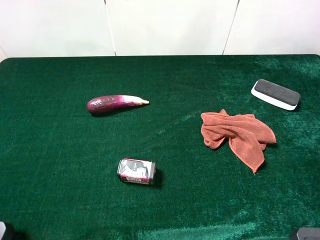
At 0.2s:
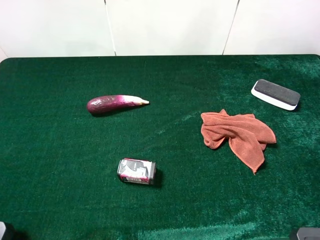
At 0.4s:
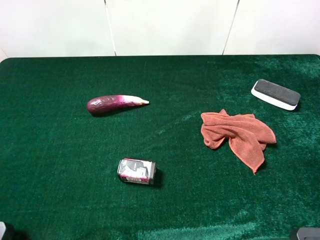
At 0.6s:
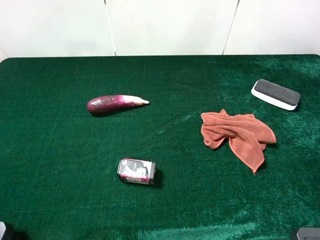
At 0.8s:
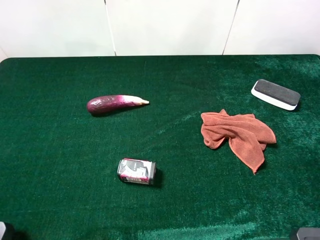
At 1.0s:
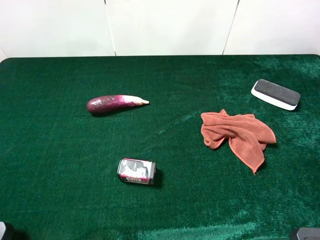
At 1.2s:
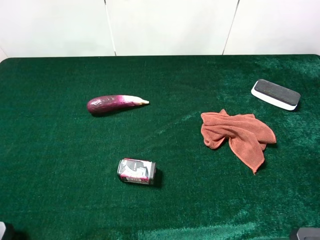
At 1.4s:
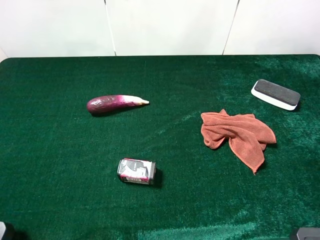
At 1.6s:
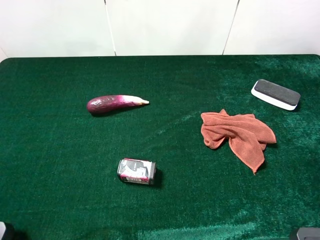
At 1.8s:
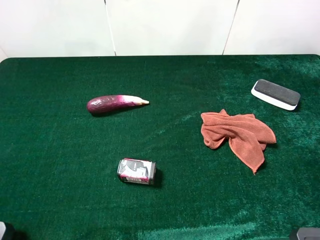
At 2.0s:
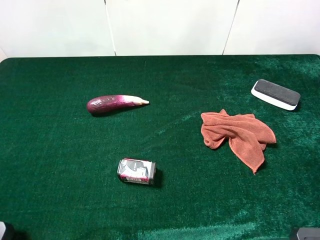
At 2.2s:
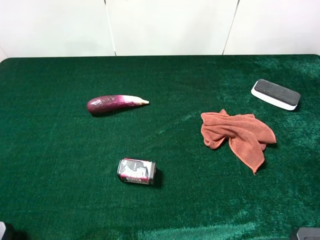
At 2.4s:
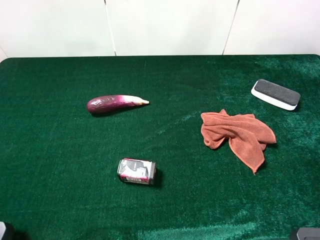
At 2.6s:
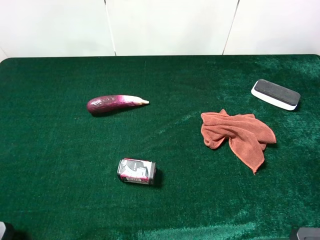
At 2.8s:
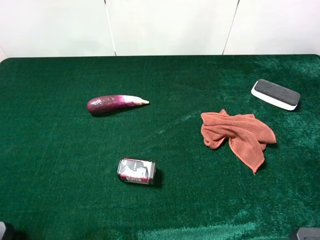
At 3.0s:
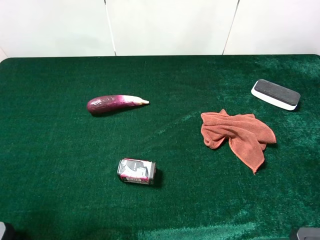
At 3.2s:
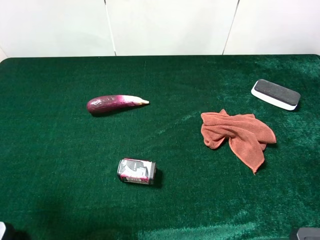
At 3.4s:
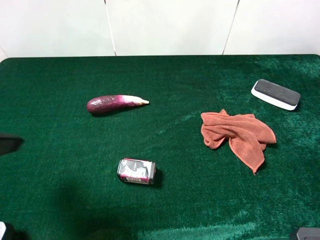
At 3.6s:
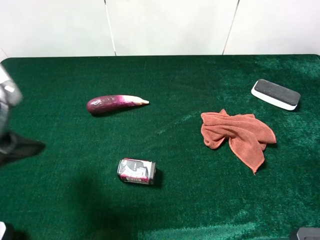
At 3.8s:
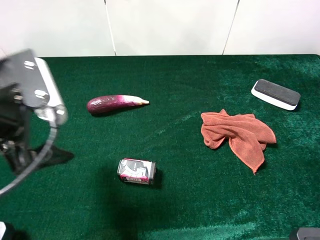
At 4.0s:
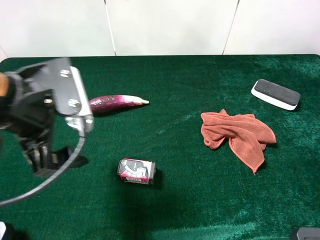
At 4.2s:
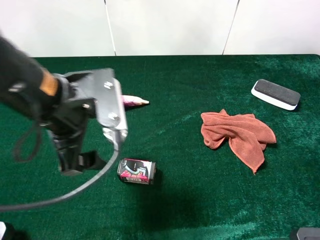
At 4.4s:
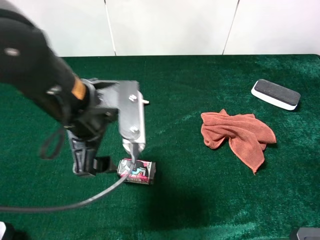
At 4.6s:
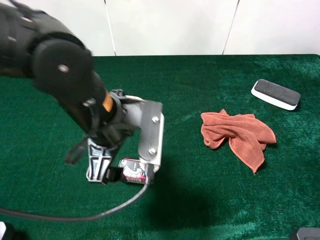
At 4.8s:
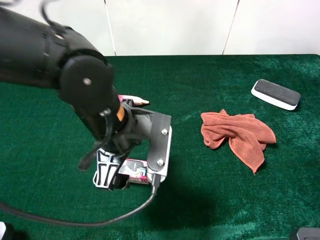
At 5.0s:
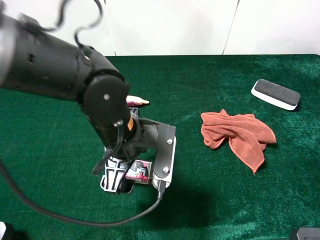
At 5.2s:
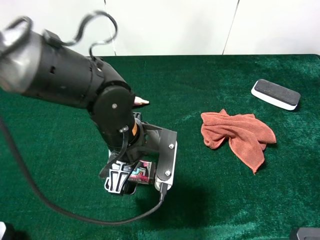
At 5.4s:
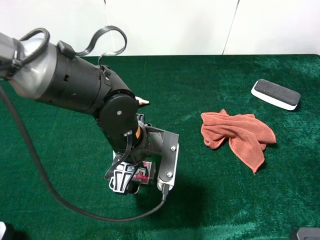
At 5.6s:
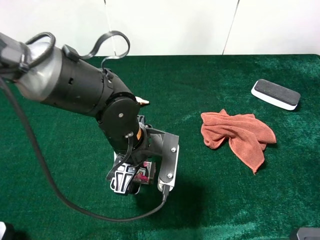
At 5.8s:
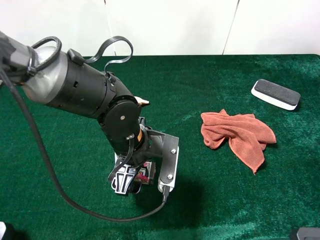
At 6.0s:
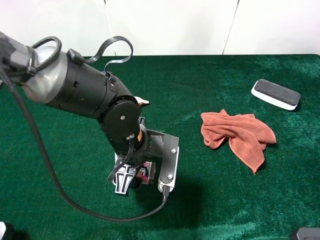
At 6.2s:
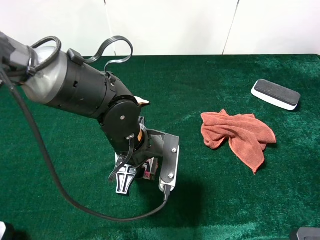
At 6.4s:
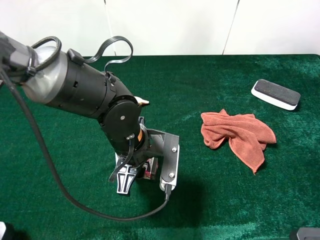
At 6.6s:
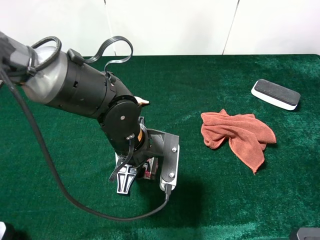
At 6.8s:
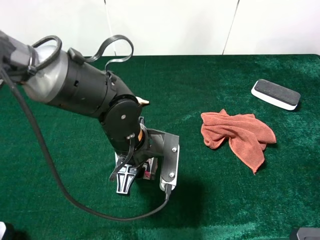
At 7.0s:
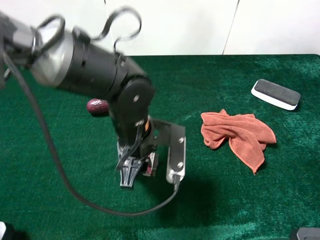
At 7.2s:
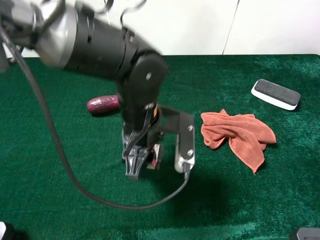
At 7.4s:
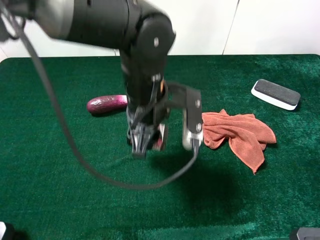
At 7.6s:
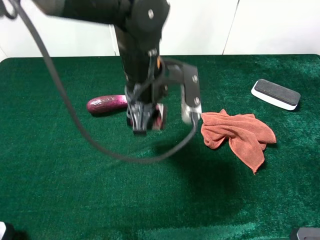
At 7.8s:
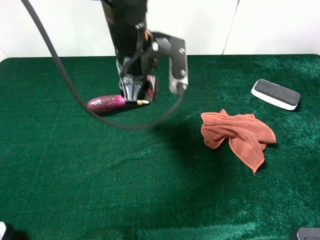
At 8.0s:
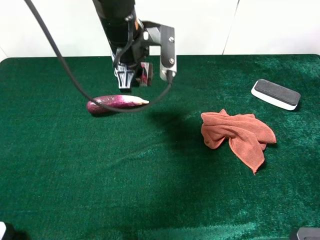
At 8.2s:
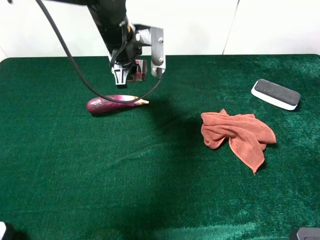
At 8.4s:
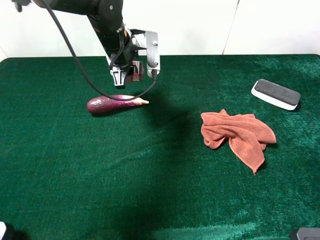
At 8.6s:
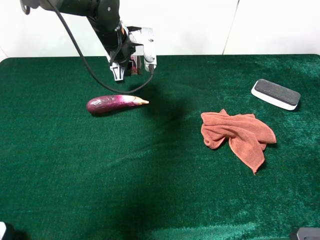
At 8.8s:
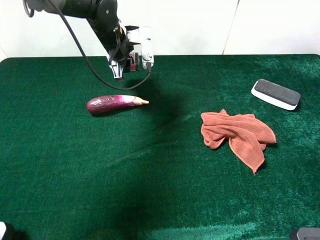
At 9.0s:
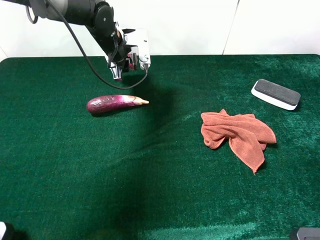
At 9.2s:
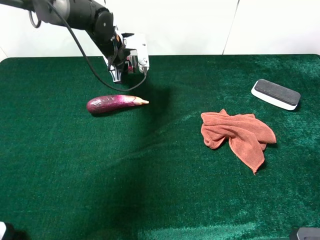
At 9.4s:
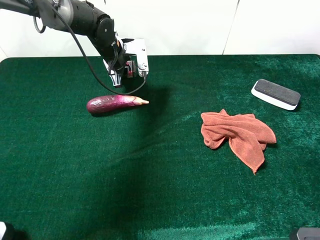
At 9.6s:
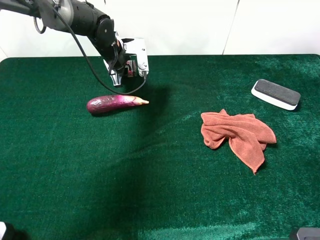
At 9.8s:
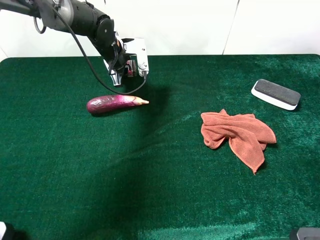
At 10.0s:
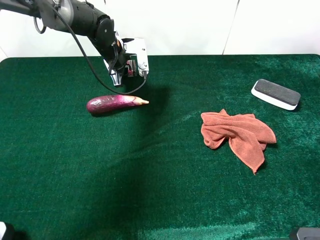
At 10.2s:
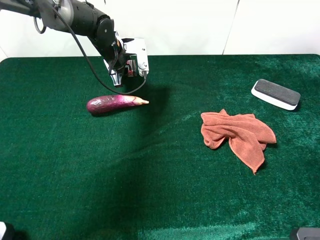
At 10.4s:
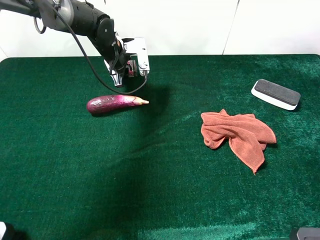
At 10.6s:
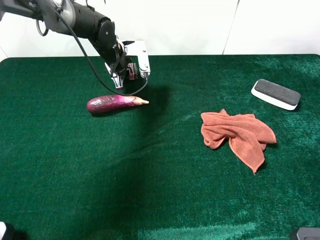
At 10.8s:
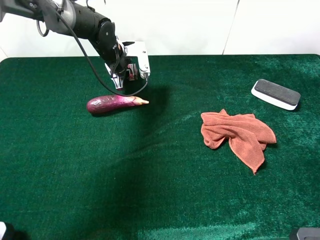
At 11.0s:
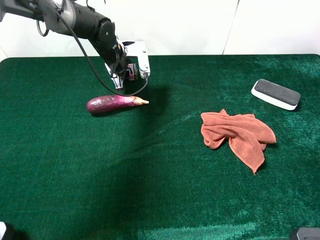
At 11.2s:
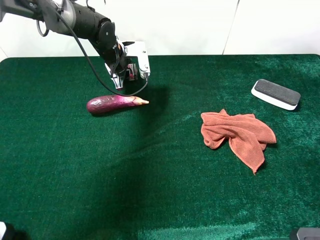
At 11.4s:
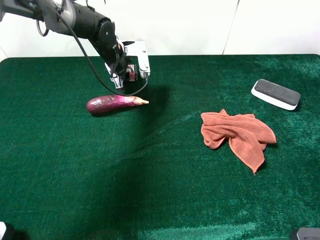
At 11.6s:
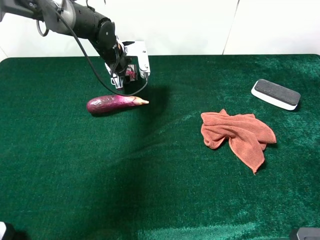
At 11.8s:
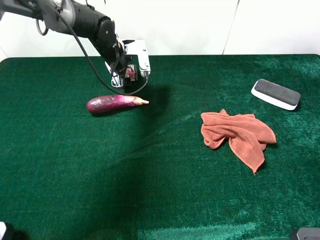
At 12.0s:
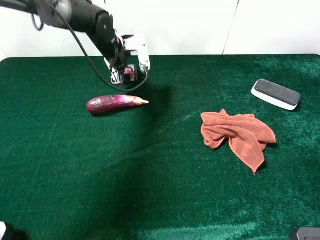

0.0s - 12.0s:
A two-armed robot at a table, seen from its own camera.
Task of the whole recording: the gripper move the object.
Step, 0.0s - 6.0s: Grasp the square chewing gum with the left gripper.
Step, 6.2s - 11.6s: Place the square chewing gum on the table with the left gripper.
3.0s - 4.4s: The left gripper heads to the right and forward, covering about 20 cm.
4.4s - 6.0s: The left gripper heads downward and to the right, covering approximately 15 cm.
6.0s - 7.6s: The left gripper moves upward and forward, some 10 cm, and closes up.
7.6s - 9.0s: The left gripper goes some 20 cm forward and to the left.
9.0s - 10.4s: The grippers make only small movements.
10.4s - 12.0s: The left gripper opens.

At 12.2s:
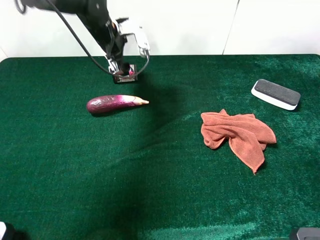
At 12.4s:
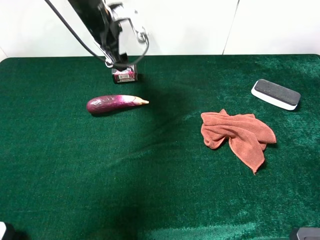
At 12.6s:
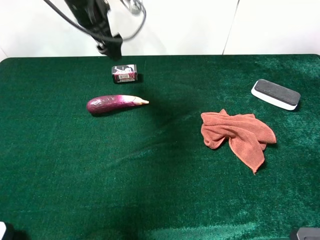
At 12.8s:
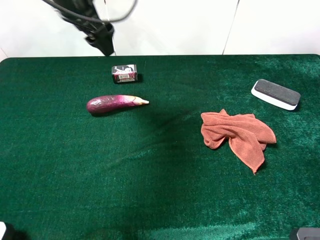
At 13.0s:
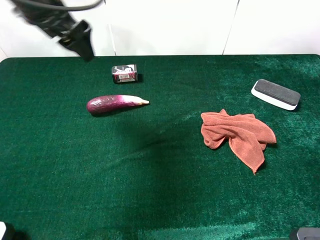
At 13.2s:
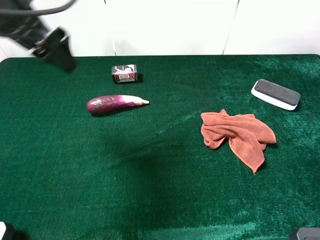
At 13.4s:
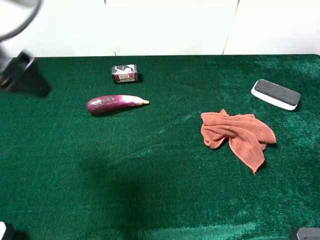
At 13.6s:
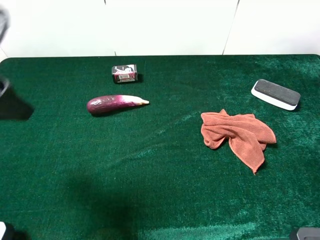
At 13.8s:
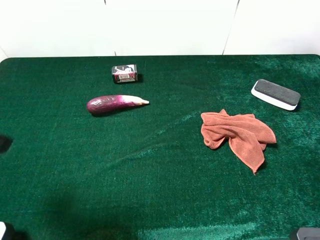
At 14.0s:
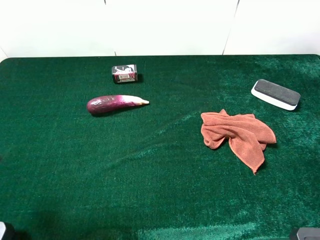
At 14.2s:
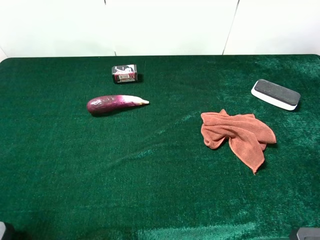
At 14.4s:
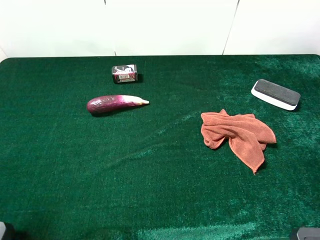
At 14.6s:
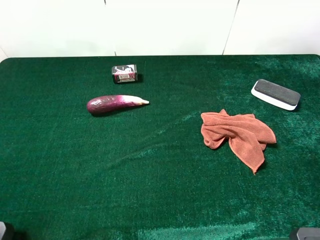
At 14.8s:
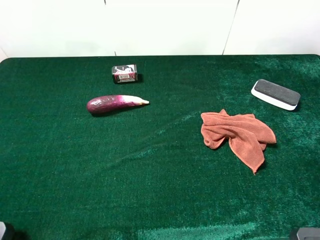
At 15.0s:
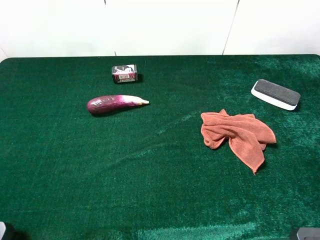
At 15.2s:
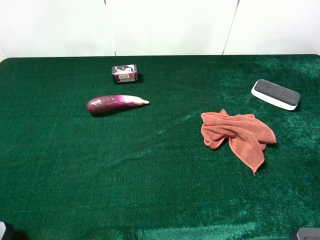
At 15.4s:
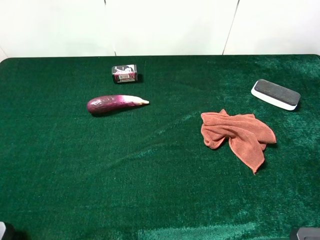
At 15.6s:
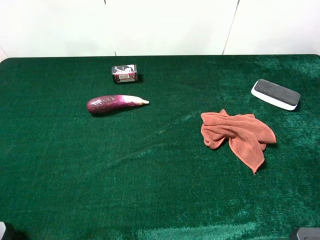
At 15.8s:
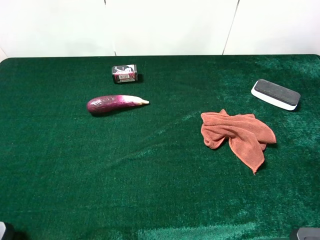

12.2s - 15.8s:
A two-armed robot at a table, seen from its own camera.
Task of the whole recording: the gripper move the object.
12.2s - 14.0s: The left gripper moves backward and to the left, approximately 40 cm.

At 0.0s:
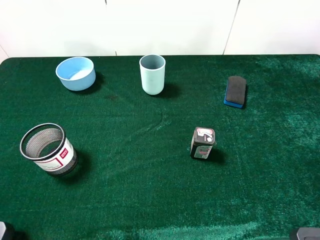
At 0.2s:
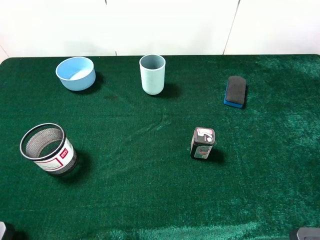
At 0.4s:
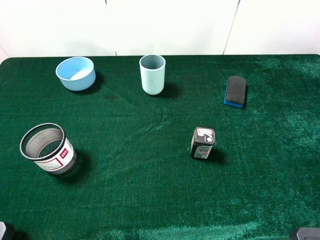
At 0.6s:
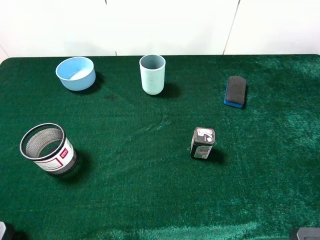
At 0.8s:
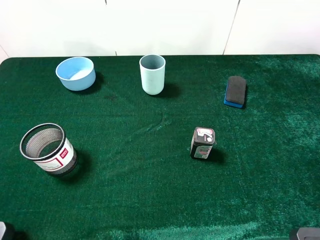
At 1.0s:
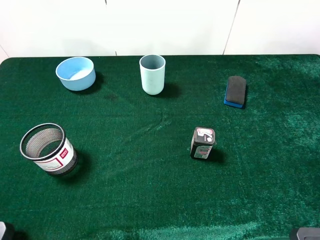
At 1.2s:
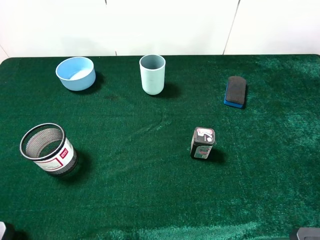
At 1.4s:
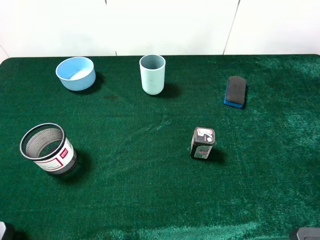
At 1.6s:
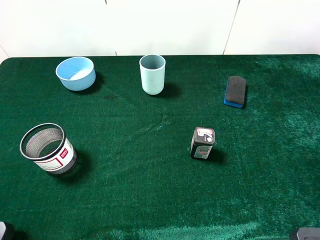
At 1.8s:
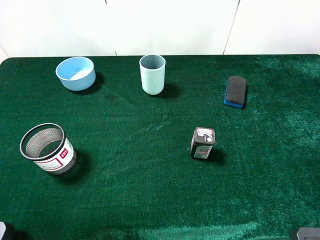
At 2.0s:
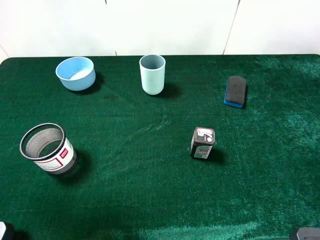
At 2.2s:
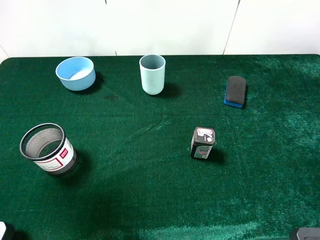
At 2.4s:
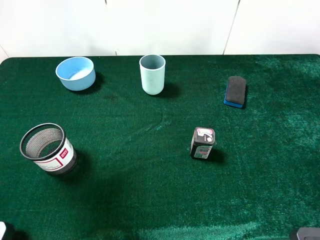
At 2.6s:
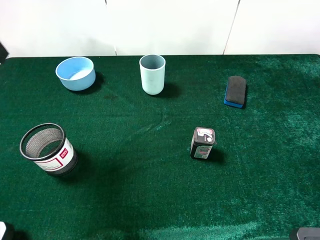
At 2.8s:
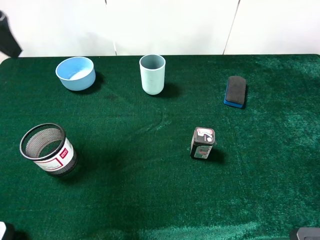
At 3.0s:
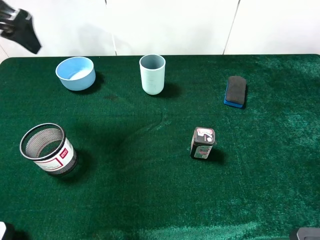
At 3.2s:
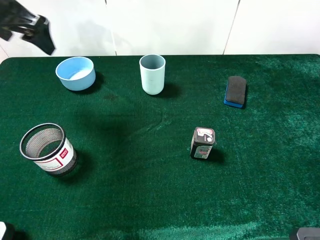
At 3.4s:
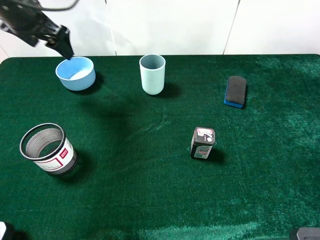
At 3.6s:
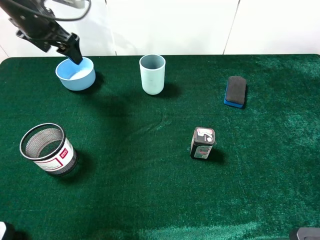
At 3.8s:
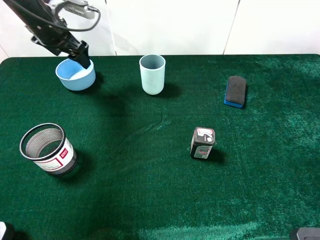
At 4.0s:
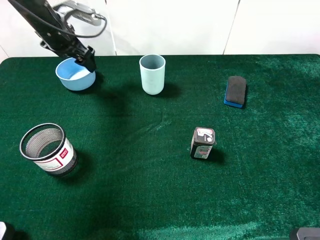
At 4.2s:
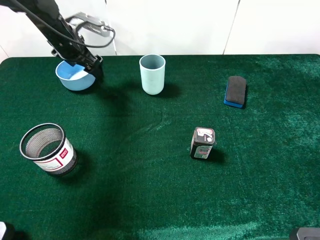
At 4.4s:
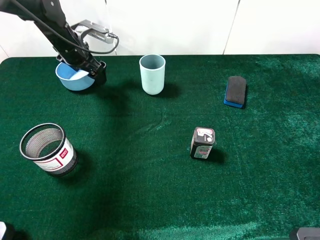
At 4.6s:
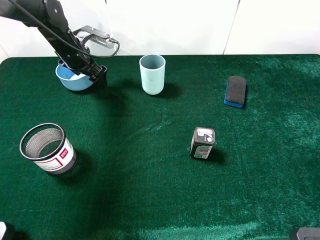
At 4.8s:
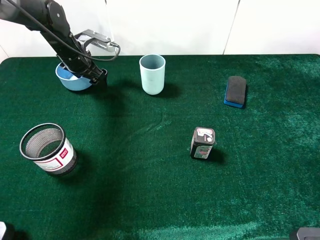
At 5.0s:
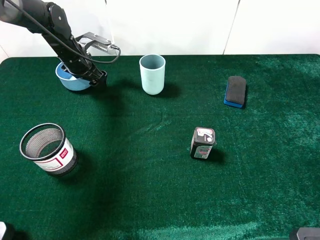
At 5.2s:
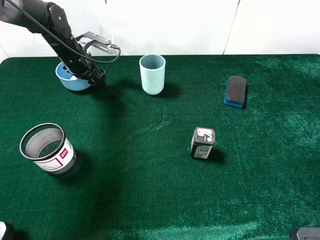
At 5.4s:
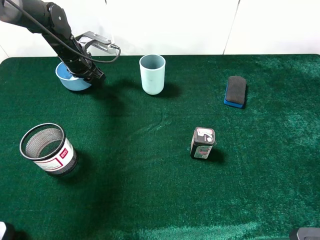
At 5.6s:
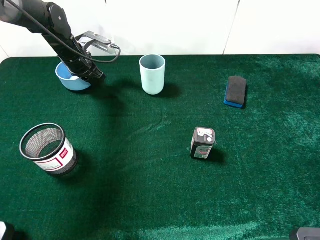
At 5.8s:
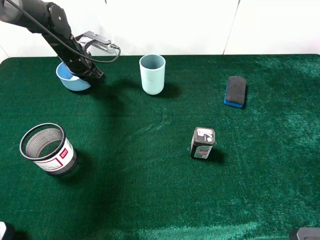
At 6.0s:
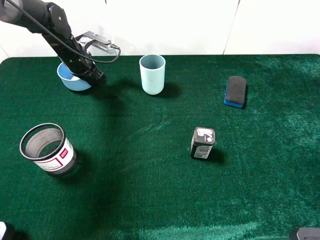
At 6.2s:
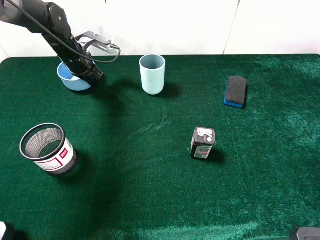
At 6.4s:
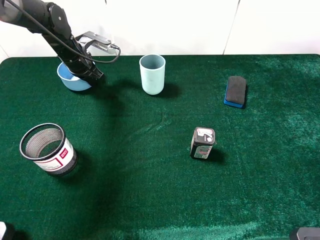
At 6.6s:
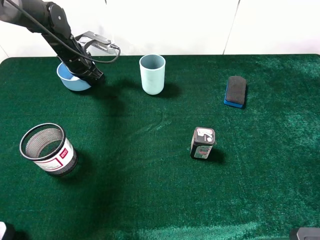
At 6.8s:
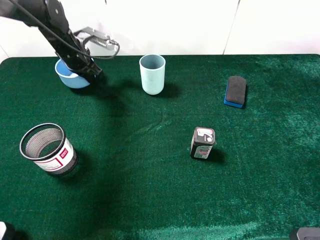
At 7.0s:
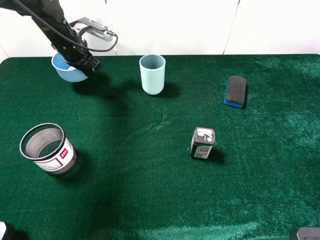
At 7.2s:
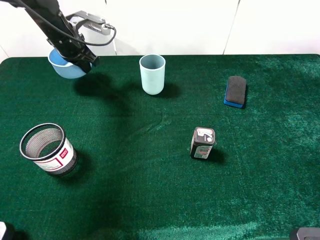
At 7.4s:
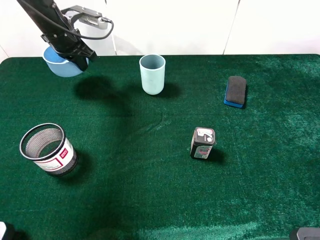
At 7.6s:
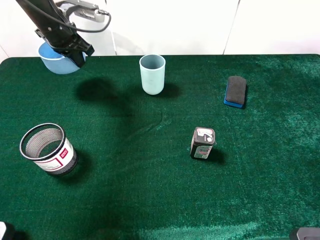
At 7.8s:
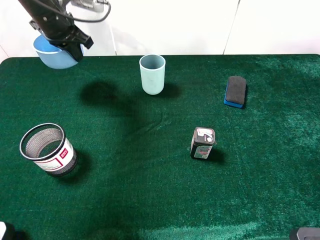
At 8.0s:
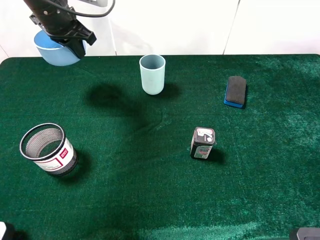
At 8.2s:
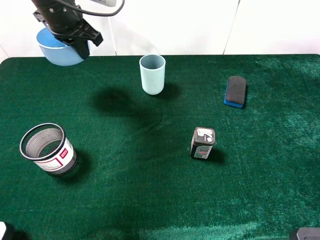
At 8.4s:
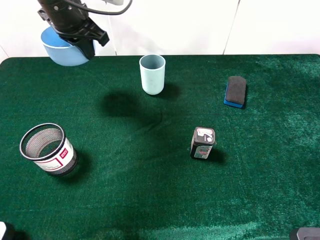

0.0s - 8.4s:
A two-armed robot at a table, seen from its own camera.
Task of the whole recording: the gripper move the object.
Step, 0.0s - 6.4s: Grasp the blue cup with the left gripper.
1.4s - 2.8s: The left gripper goes about 25 cm forward.
2.8s - 4.2s: The left gripper is displaced downward and forward by some 25 cm.
4.2s - 5.6s: The left gripper closes.
5.6s - 7.0s: The grippers stay close to where they were, moving slightly.
7.0s - 8.4s: The left gripper shifts some 15 cm upward, backward and to the right.
